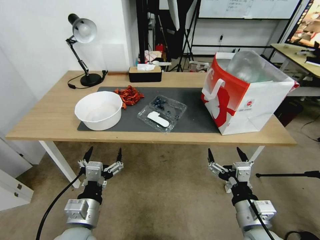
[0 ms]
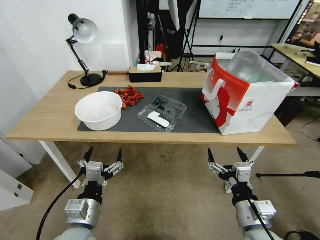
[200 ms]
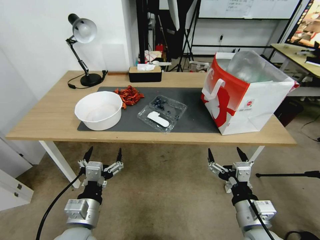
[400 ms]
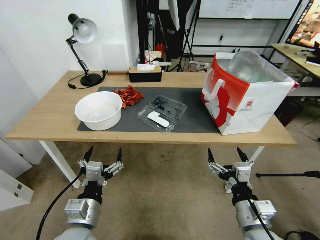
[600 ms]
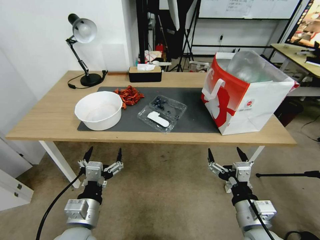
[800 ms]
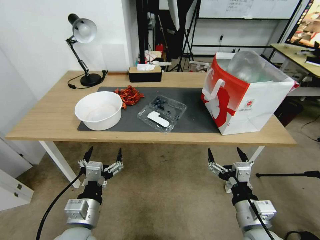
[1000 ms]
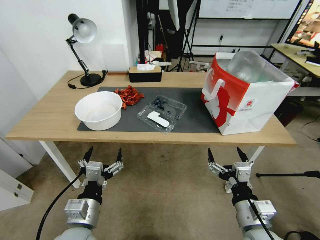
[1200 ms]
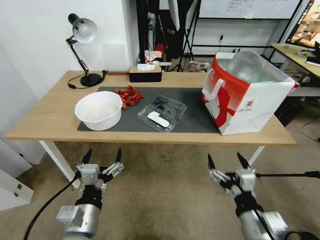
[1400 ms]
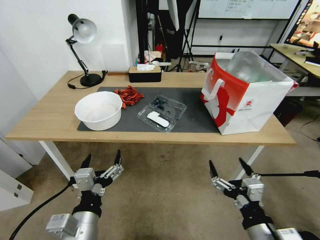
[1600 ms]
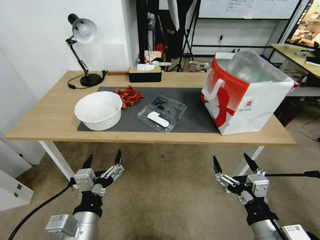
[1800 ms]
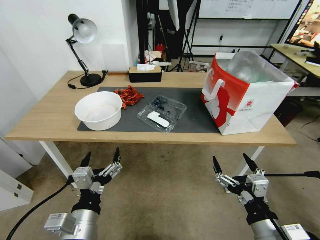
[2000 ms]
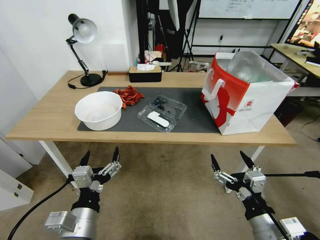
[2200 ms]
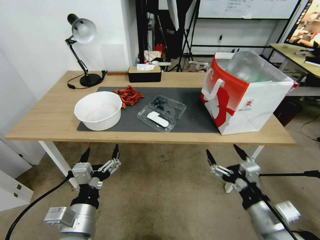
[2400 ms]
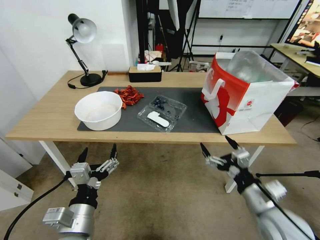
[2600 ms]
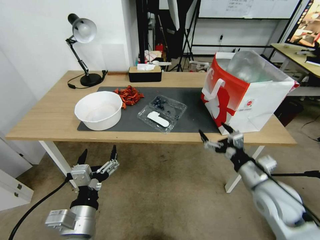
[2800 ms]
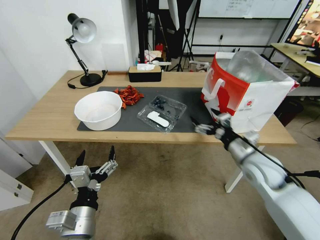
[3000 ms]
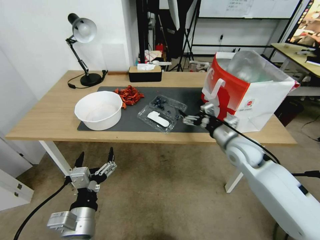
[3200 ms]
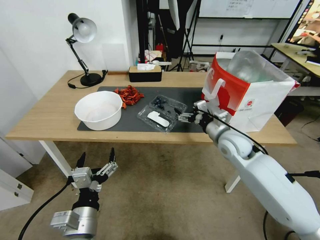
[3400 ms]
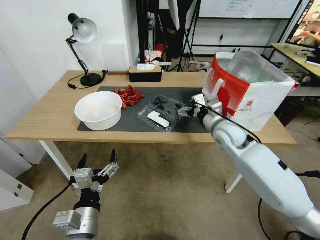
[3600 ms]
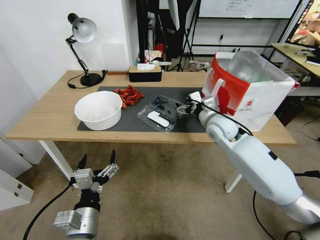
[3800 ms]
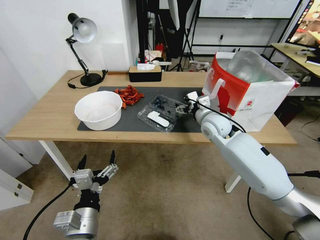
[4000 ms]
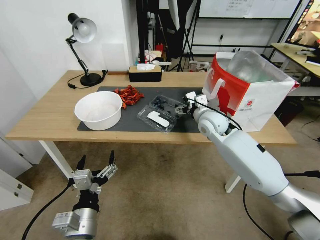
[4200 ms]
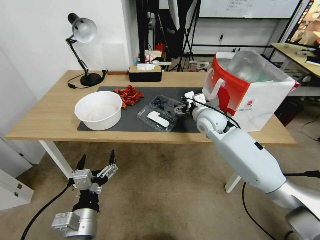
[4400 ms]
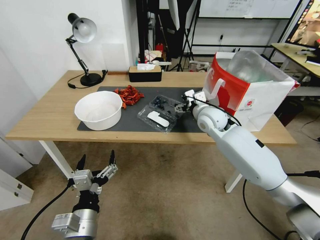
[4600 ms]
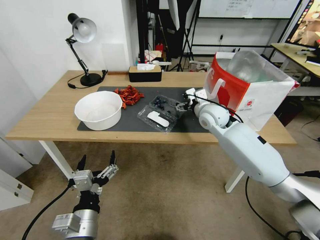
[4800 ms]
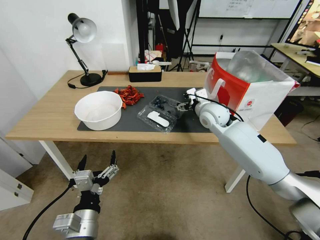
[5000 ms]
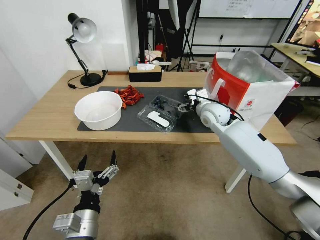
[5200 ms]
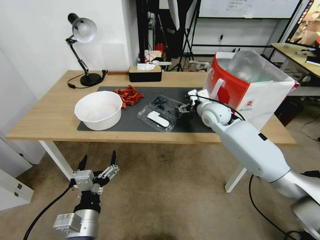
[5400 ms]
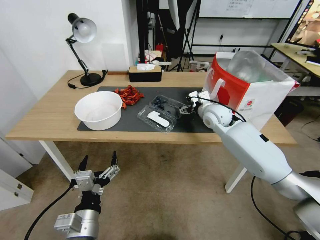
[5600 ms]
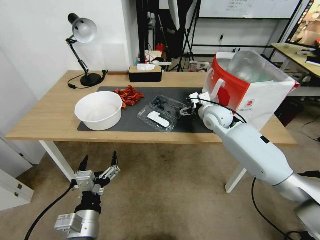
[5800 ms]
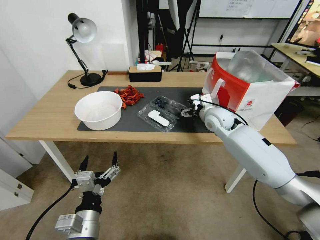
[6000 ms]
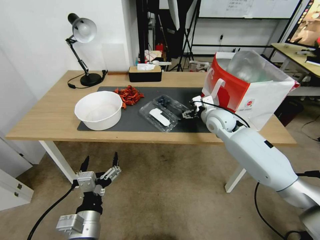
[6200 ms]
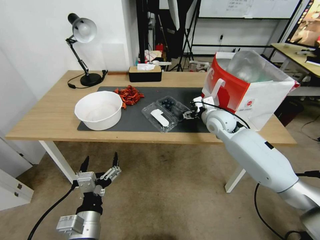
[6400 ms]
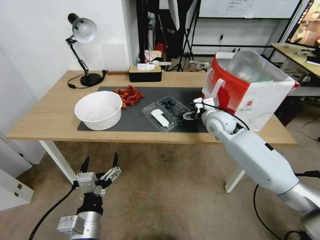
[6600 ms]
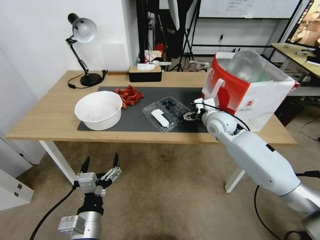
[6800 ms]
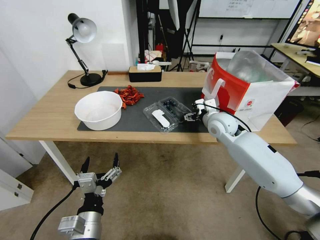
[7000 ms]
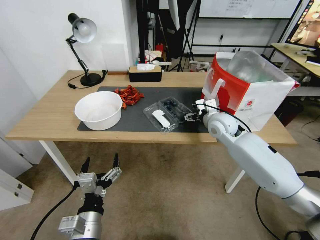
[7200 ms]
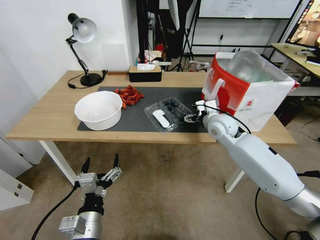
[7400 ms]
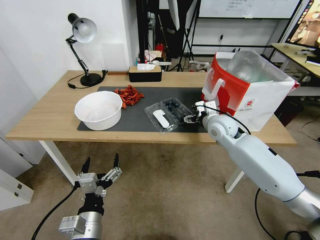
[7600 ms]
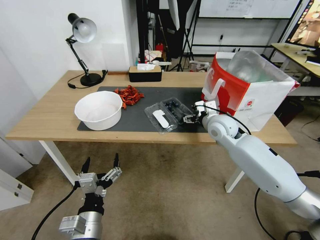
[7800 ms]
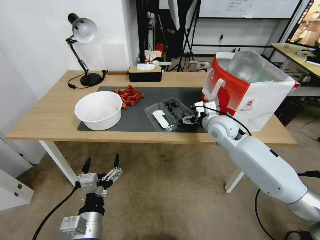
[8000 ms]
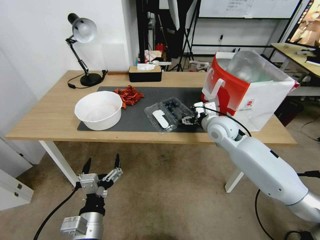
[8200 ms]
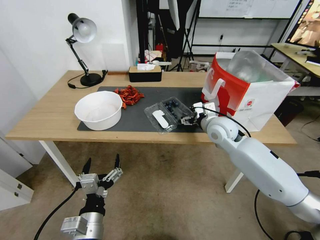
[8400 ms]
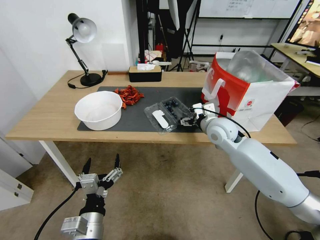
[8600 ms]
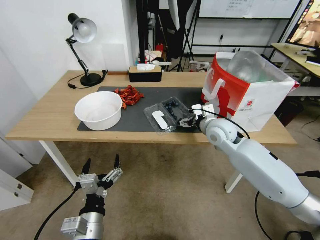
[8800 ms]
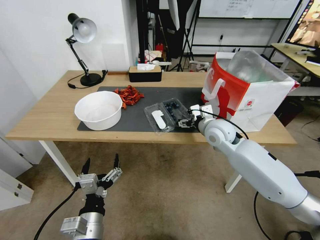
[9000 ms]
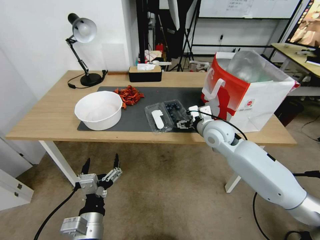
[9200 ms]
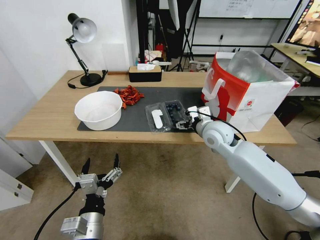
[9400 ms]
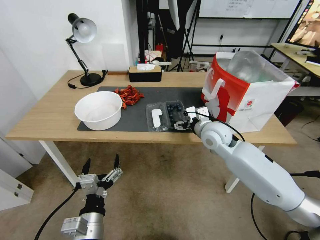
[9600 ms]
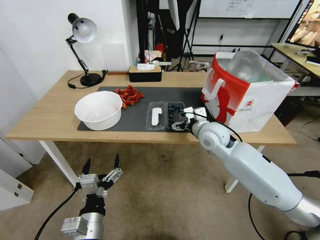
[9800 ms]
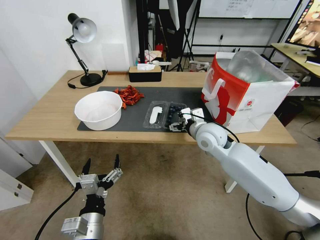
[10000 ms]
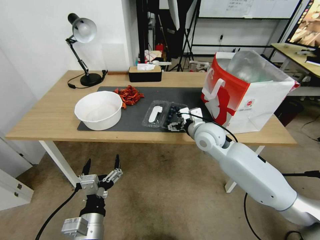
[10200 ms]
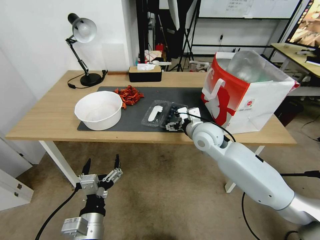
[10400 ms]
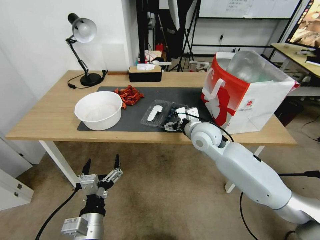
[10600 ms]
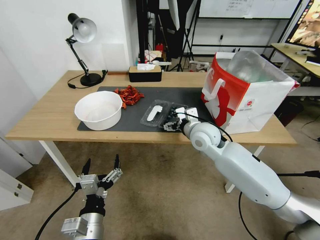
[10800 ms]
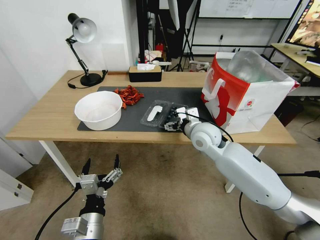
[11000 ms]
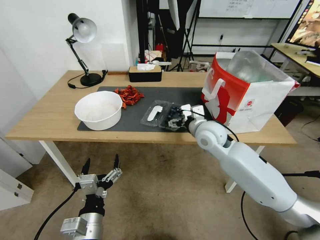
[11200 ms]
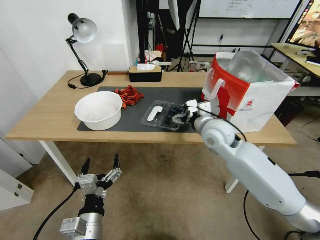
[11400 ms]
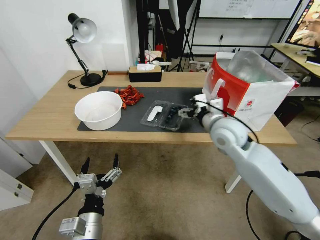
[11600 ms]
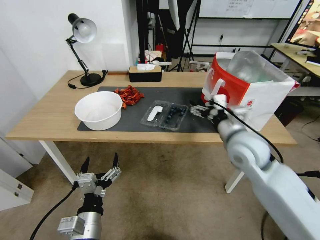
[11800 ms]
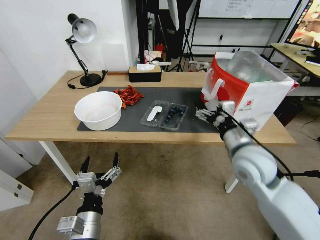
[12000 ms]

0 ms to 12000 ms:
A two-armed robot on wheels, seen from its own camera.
Task of the whole recording: Close the takeout container lid, then place the container into the takeout bag.
1600 ms to 3000 ms: The right gripper travels forward by about 25 cm.
3000 ms to 4400 ms: The right gripper travels forward and to the left by some 20 cm.
4400 ms to 9000 ms: There are only small adjustments of the grippers.
9000 ms to 10400 ms: The grippers make only small movements.
10400 ms to 12000 ms: The right gripper travels backward and to the right by some 15 cm.

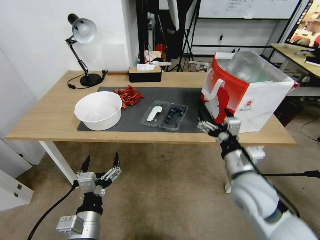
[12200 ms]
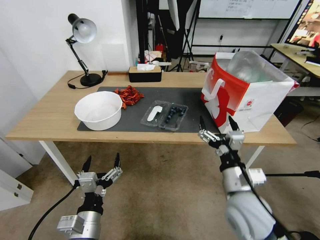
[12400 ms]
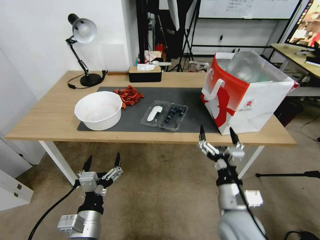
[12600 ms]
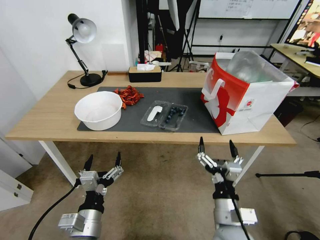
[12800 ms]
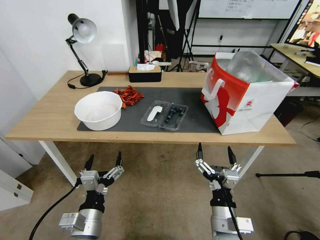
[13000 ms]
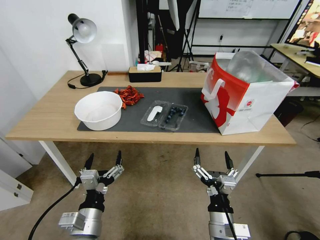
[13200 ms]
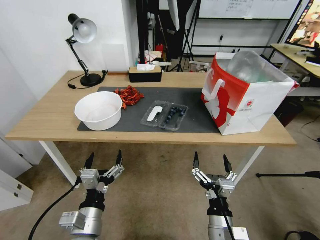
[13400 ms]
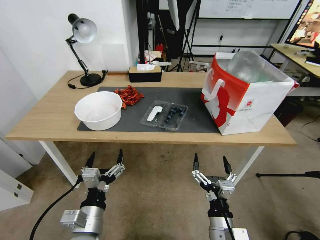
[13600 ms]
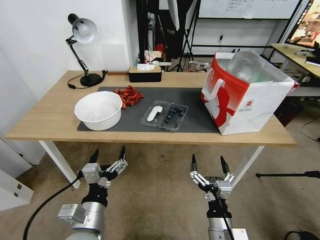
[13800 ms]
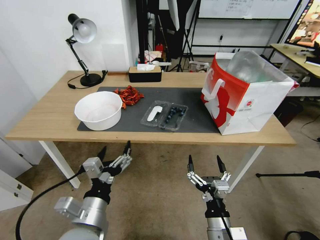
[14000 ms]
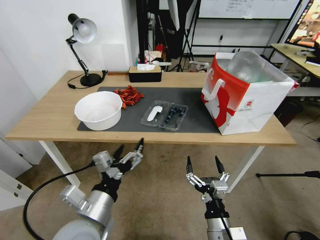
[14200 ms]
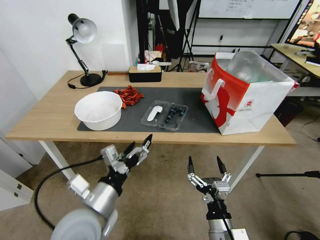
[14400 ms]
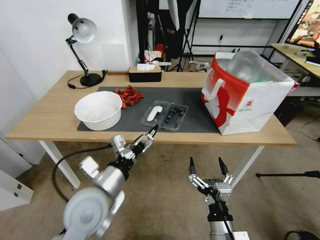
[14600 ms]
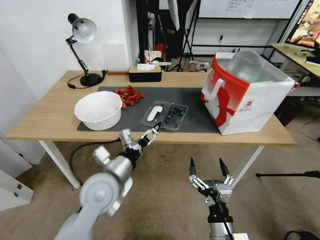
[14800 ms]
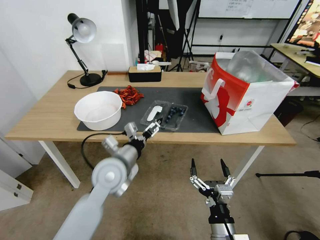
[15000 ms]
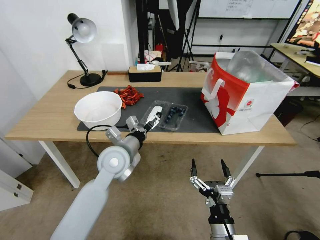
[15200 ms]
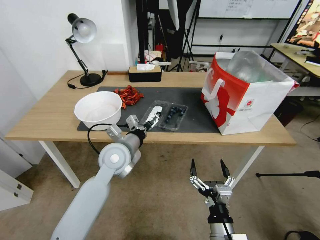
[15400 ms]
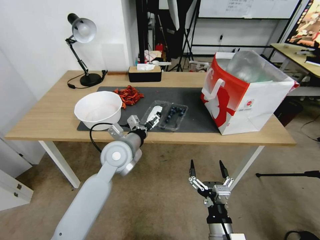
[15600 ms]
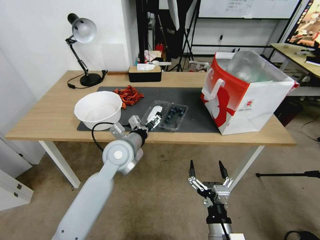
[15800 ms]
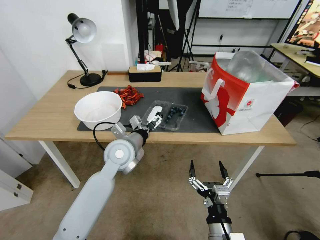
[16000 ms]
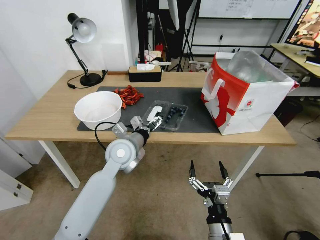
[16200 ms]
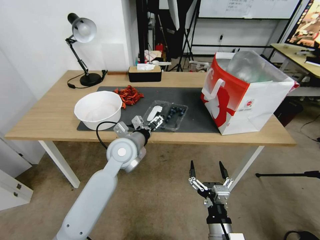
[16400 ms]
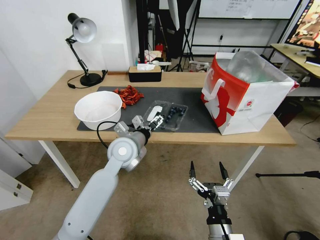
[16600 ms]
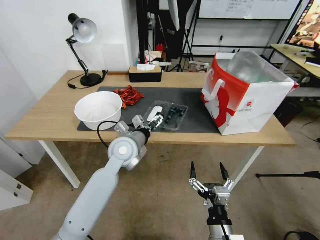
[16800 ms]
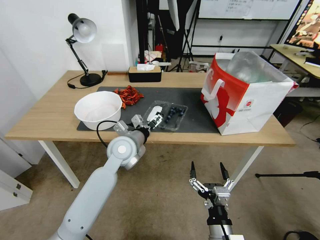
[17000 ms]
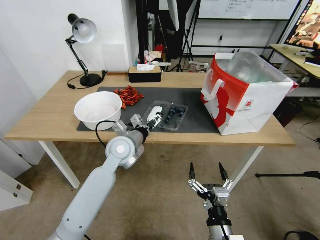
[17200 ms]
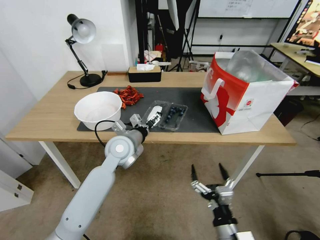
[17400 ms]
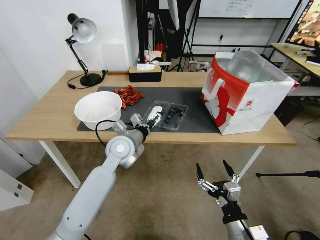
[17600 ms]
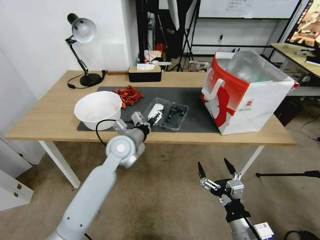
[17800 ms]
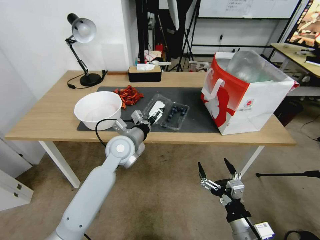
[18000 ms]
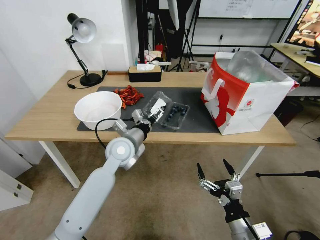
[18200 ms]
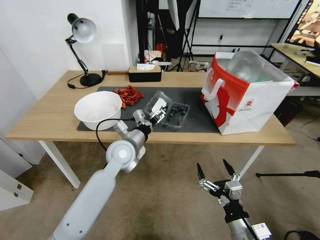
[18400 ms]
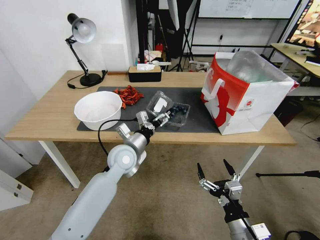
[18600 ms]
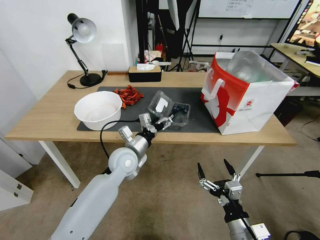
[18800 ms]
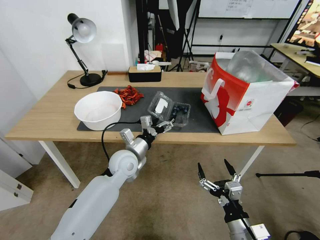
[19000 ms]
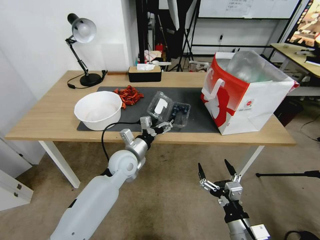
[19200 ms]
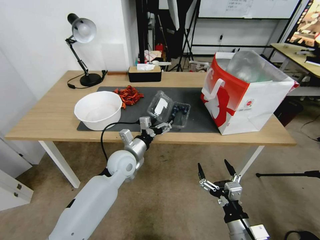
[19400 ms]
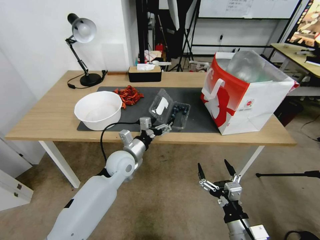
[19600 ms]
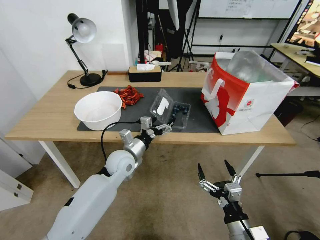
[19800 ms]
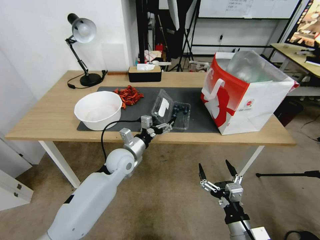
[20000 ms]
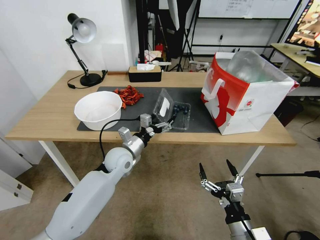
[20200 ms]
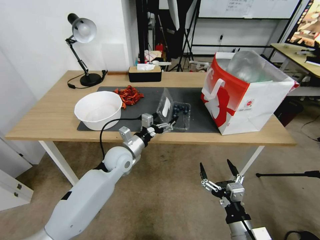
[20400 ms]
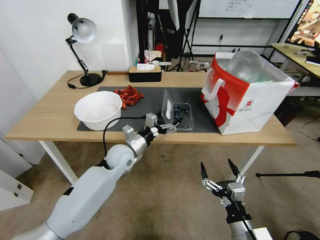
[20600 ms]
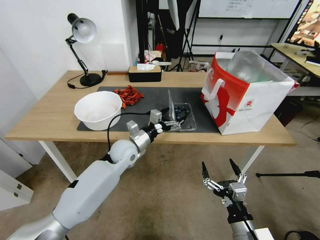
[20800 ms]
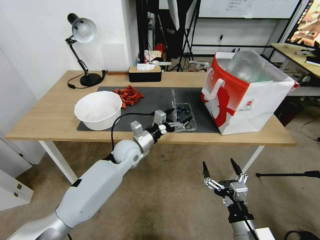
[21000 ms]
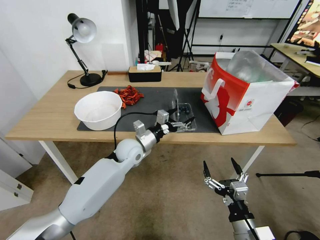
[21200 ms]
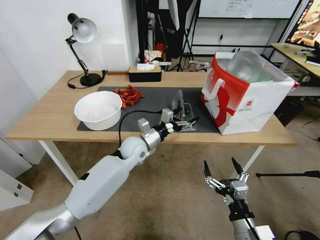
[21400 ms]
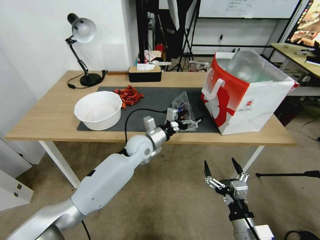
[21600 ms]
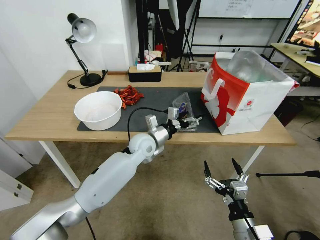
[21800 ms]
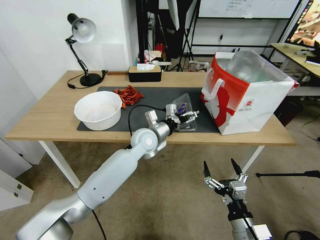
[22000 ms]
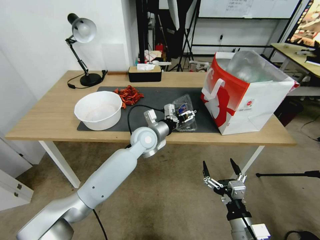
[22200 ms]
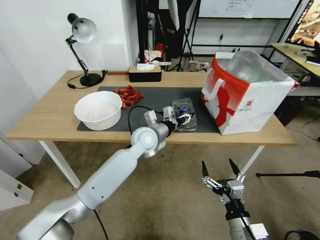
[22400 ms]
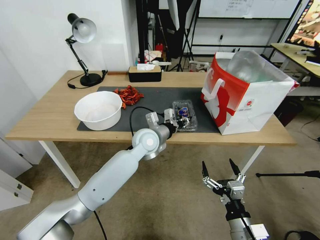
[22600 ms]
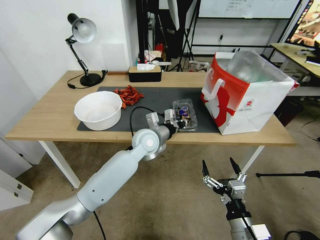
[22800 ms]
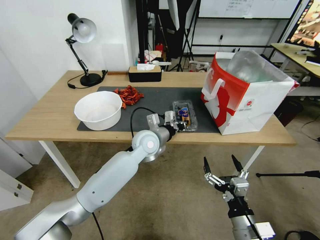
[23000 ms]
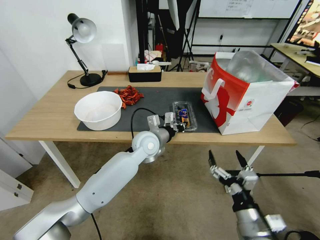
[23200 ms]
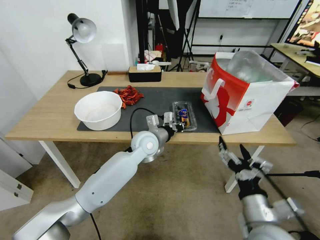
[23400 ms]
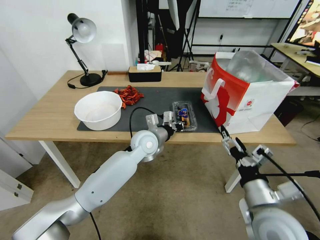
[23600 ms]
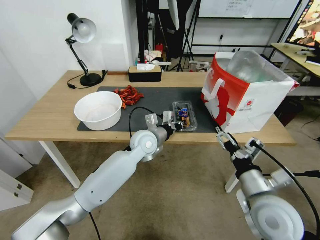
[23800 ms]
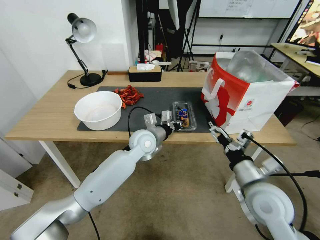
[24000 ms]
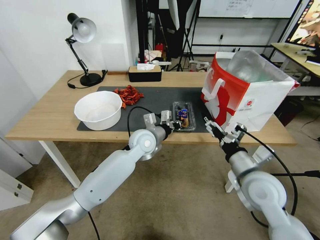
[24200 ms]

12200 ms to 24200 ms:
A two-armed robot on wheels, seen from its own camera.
Task of the whole recording: Close the takeout container lid, then place the container into the takeout bag.
12200 ms to 13800 ms: The right gripper heads downward, backward and to the left, covering approximately 20 cm.
13800 ms to 15200 ms: The left gripper goes approximately 20 cm forward.
15200 ms to 16600 ms: There are only small adjustments of the grippers.
16600 ms to 18200 ms: The right gripper travels to the right by approximately 10 cm.
18200 ms to 19800 ms: The left gripper travels downward by approximately 5 cm.
19800 ms to 21200 ms: The left gripper ends up approximately 5 cm from where it was.
21200 ms to 22600 ms: The left gripper goes some 5 cm to the right, and closes its fingers.
22600 ms to 24200 ms: The right gripper travels forward and upward by roughly 20 cm.
